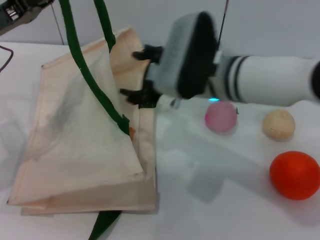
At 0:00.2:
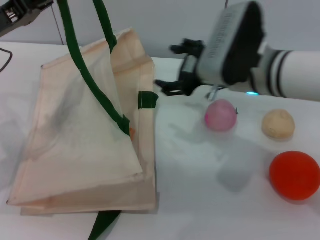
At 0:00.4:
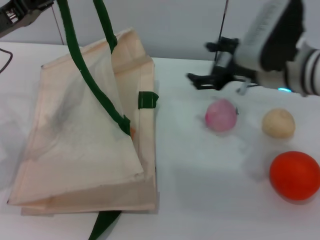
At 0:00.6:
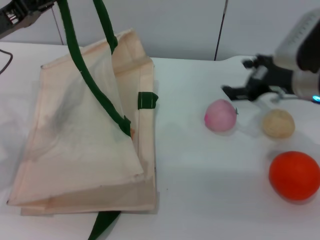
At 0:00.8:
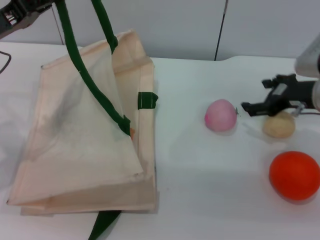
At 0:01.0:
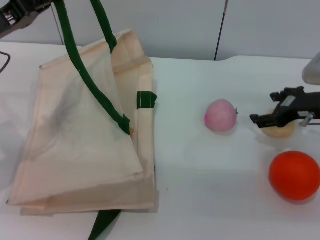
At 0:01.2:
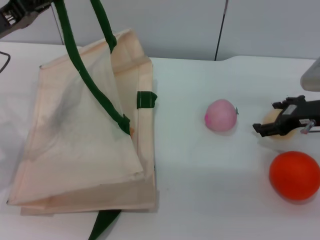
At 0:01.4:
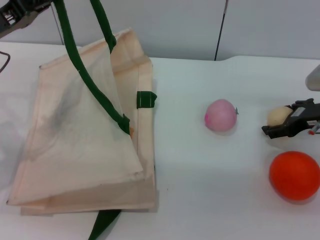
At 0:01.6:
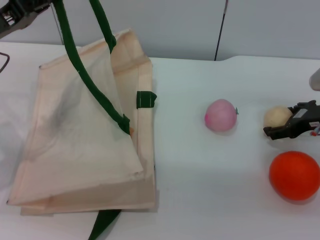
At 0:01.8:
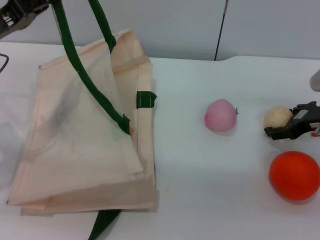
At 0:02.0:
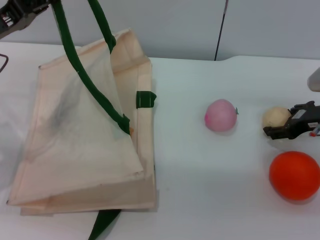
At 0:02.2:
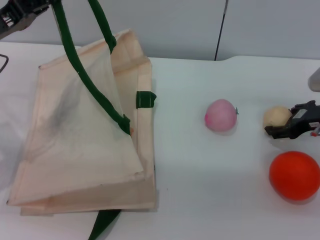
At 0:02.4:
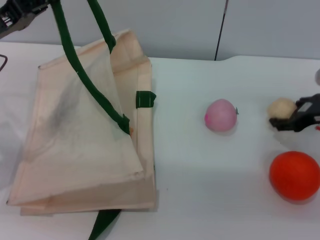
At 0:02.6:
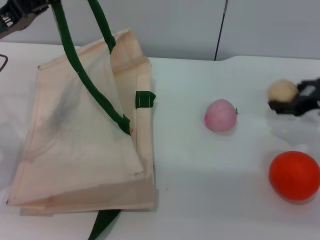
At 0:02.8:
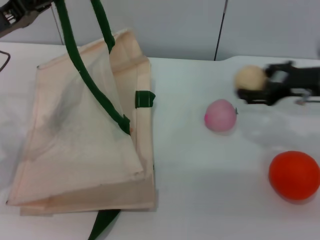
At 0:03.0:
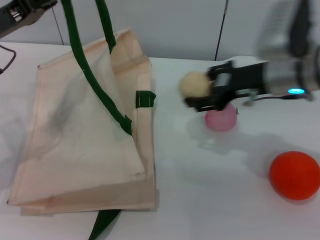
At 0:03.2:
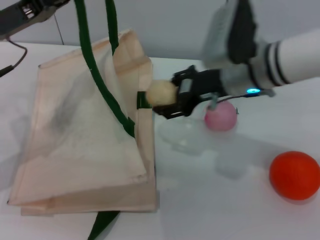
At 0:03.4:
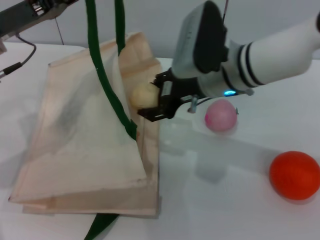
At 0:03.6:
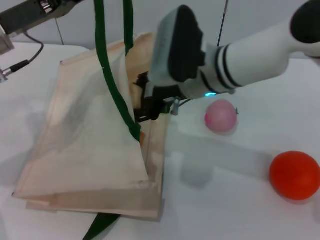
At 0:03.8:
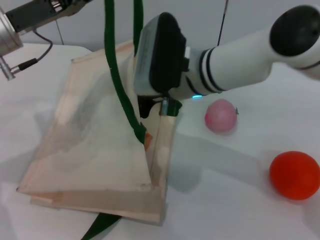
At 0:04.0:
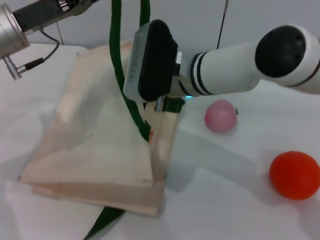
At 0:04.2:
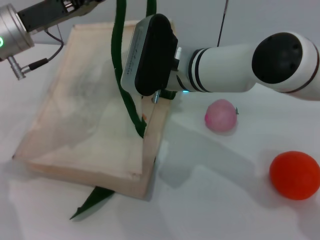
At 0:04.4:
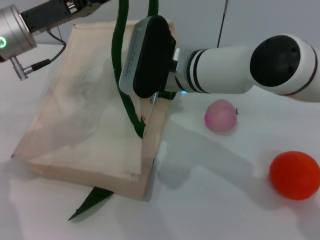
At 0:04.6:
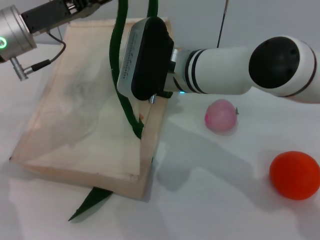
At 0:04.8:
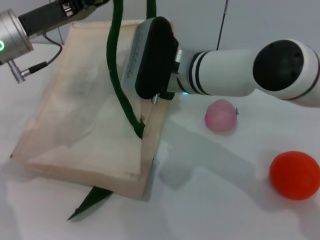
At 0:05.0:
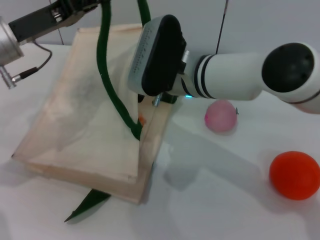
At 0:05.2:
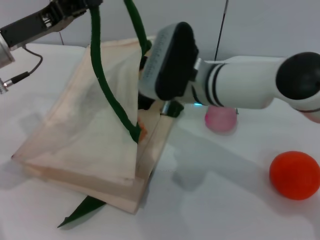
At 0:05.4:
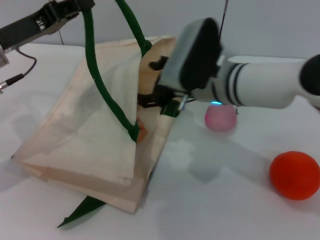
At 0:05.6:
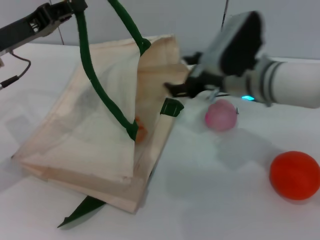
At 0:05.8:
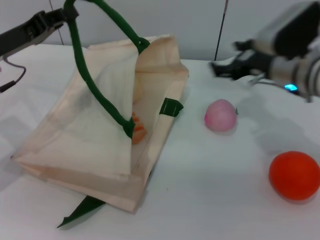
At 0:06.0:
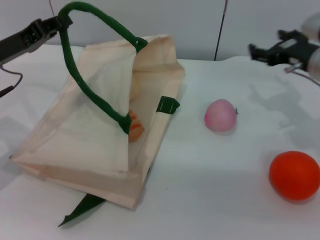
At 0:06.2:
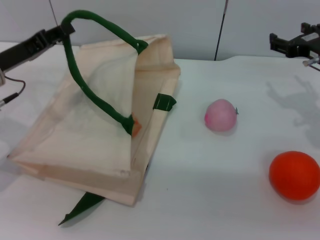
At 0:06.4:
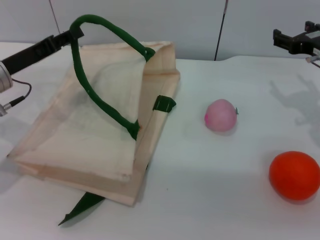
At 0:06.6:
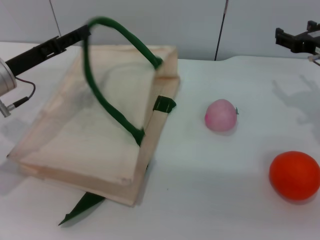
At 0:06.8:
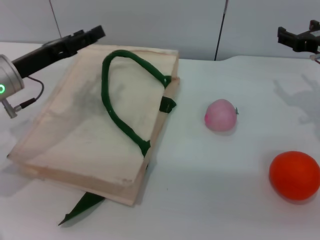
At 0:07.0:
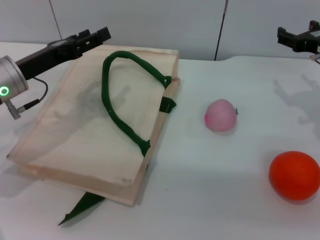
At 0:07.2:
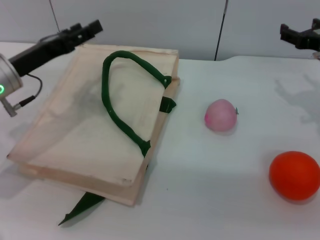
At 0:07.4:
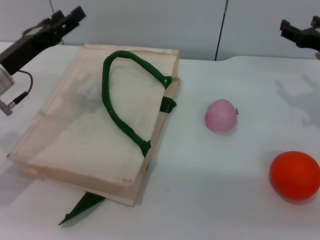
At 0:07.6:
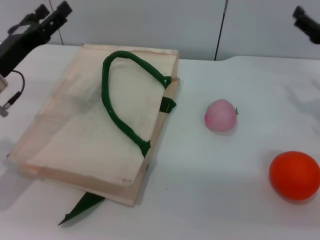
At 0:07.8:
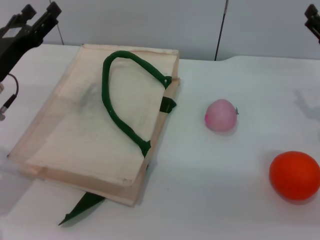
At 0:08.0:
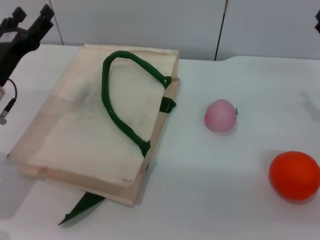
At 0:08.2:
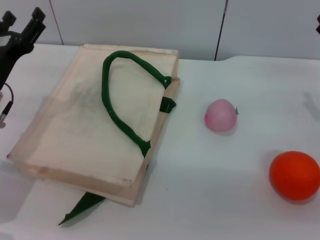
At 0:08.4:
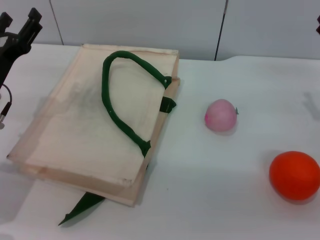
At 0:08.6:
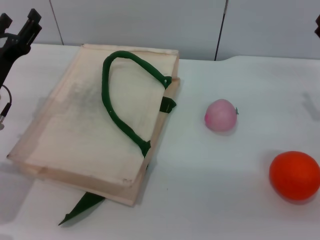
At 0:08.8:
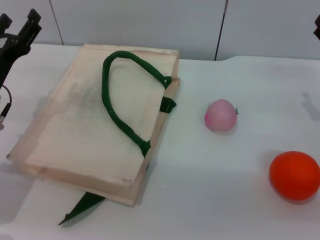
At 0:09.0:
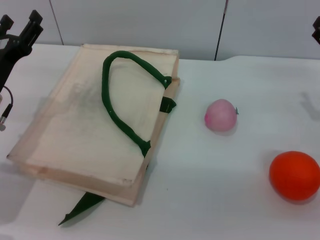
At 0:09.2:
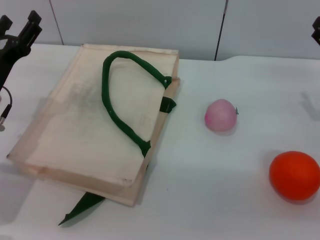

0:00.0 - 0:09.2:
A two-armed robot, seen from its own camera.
Task of the whole recording: pick up the bread and egg yolk pastry from the table and place it in the white handbag.
Step, 0:00.2 - 0:02.6: Pick up the egg yolk pastry with the right gripper.
Step, 0:02.8 - 0:05.8: Place the egg yolk pastry into the woven bag with the right gripper.
Step, 0:06.0 - 0:07.4: Lower the woven bag with the left gripper to close it.
0:00.0 - 0:01.6: The right gripper shifts approximately 20 cm to the right.
0:01.6 - 0:03.0: The right gripper goes about 15 cm to the left and upward.
0:03.0 - 0:04.6: The left gripper is displaced to the right by about 5 cm. The right gripper shifts roughly 15 cm to the left.
0:04.6 - 0:06.2: The right gripper travels to the right by some 25 cm, and opens its fingers, while the left gripper shifts approximately 10 cm downward and to the left.
0:06.2 - 0:07.6: The left gripper opens.
